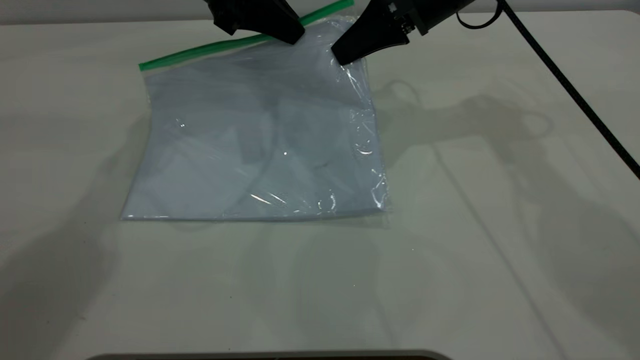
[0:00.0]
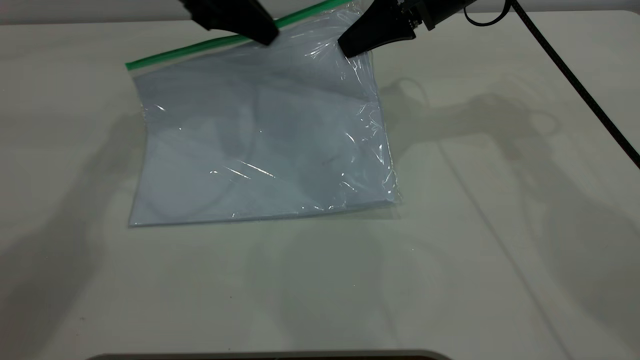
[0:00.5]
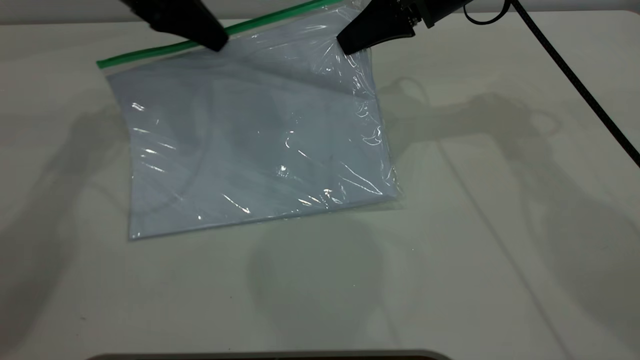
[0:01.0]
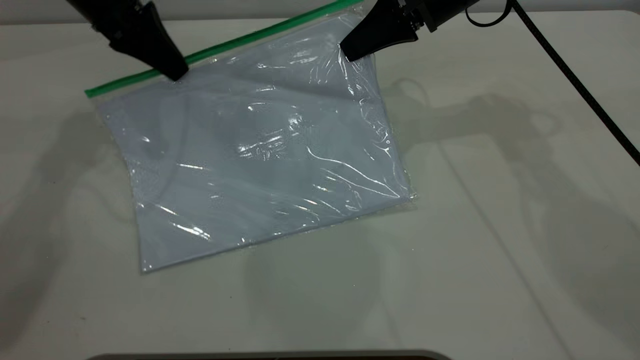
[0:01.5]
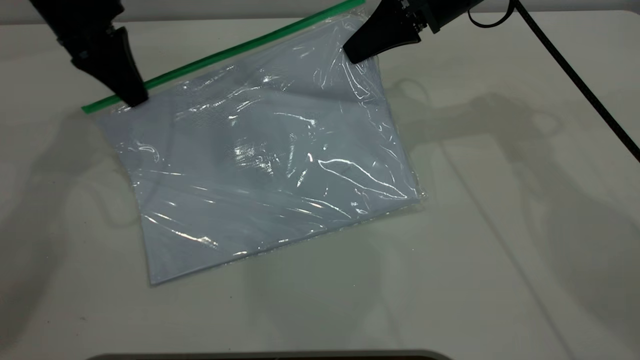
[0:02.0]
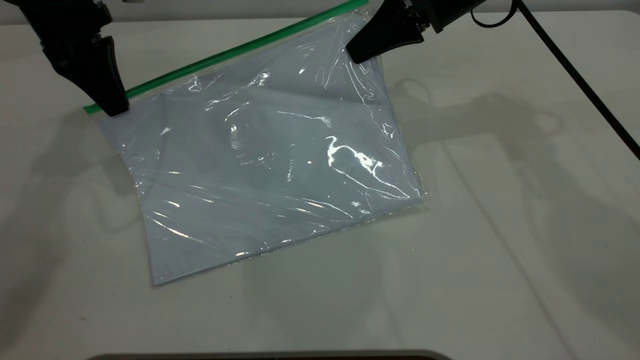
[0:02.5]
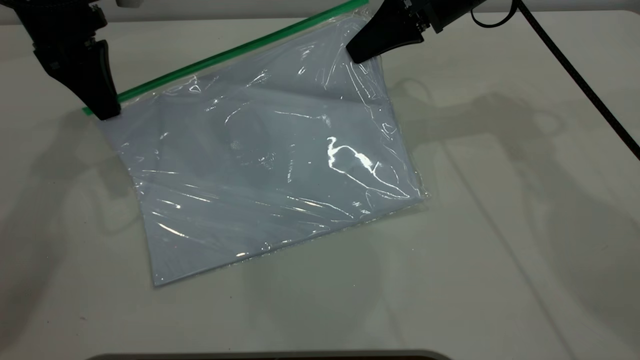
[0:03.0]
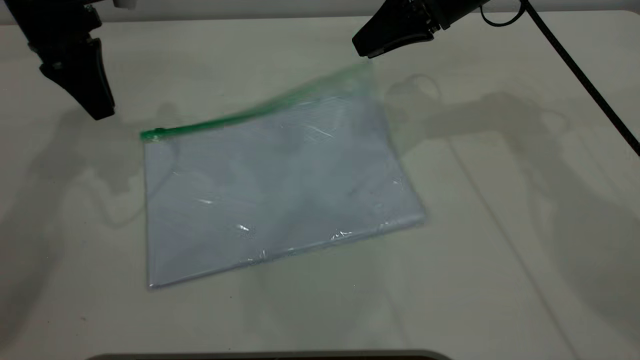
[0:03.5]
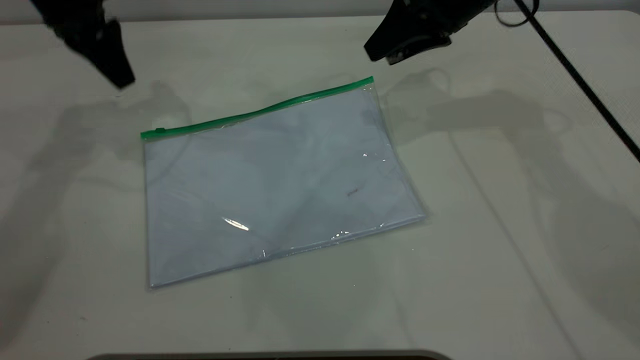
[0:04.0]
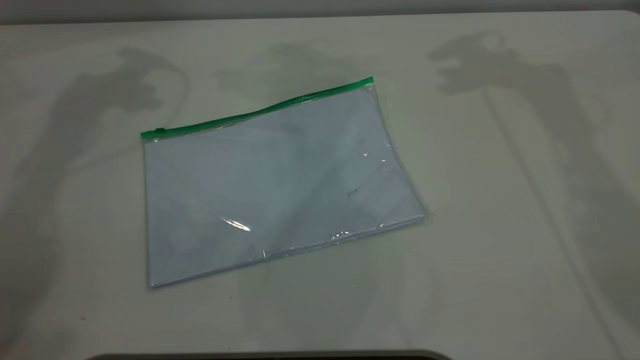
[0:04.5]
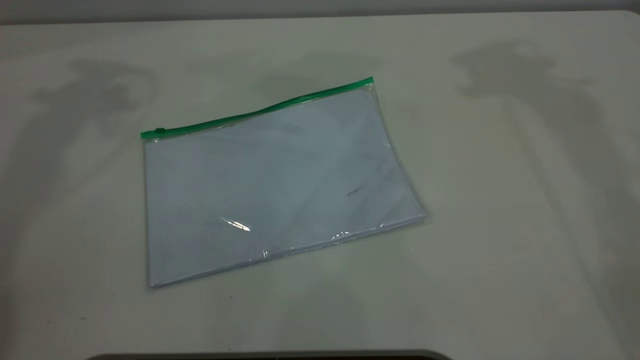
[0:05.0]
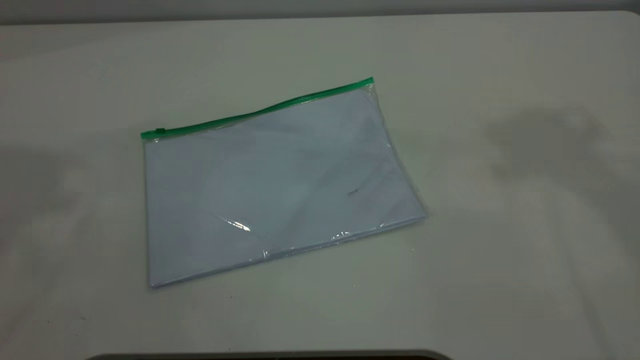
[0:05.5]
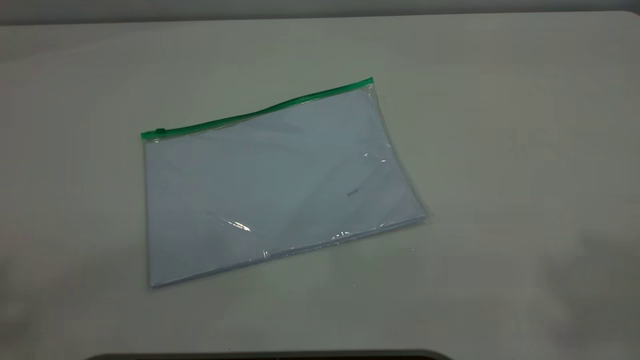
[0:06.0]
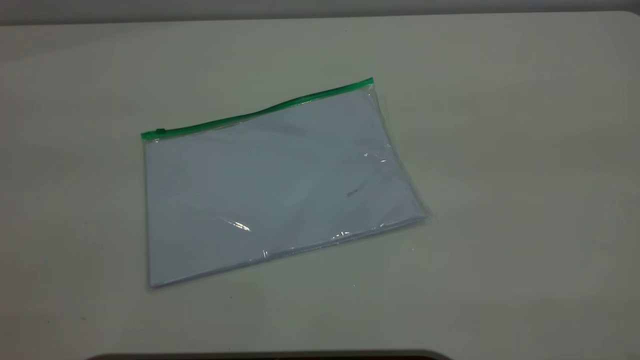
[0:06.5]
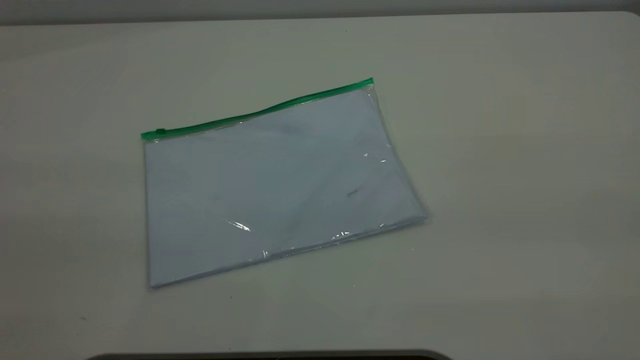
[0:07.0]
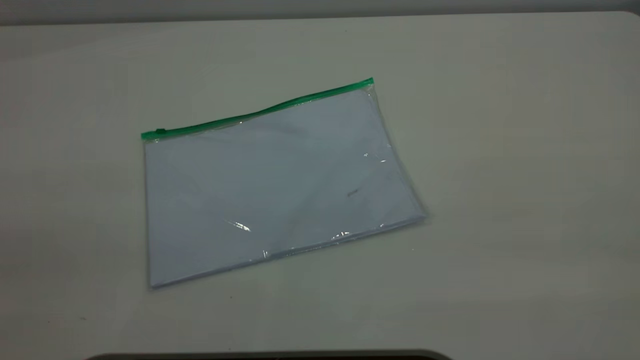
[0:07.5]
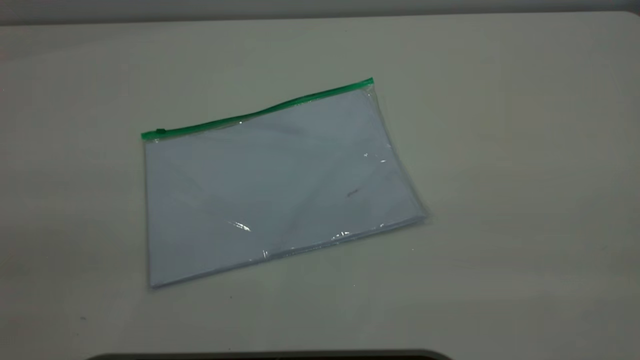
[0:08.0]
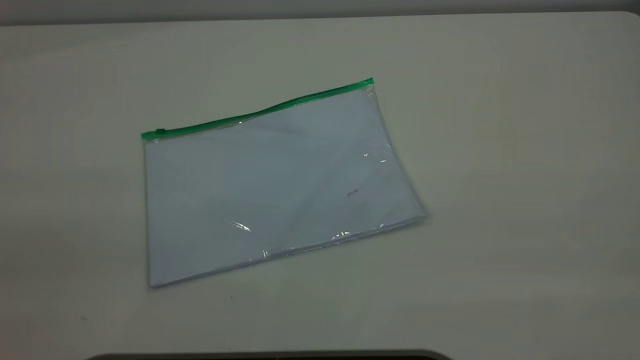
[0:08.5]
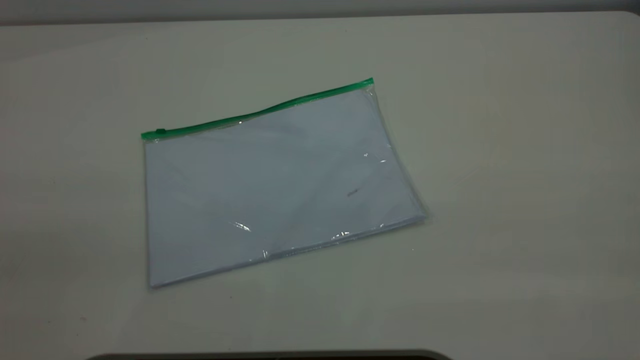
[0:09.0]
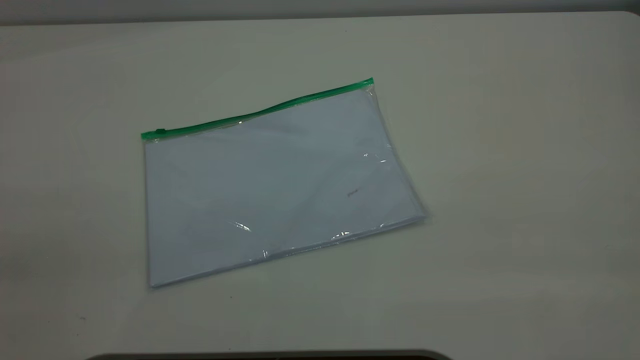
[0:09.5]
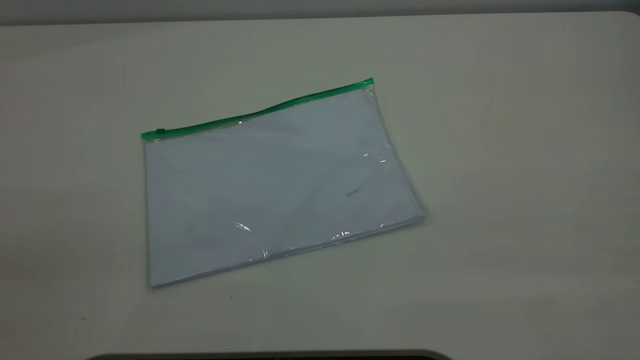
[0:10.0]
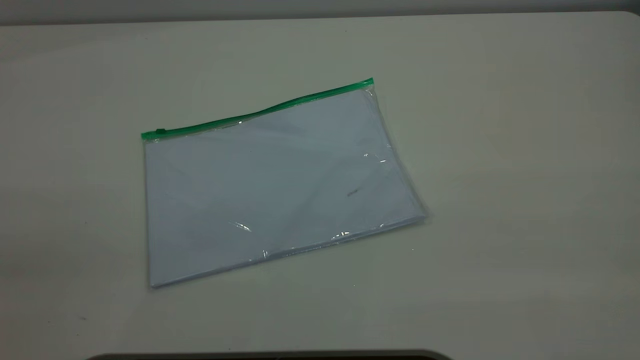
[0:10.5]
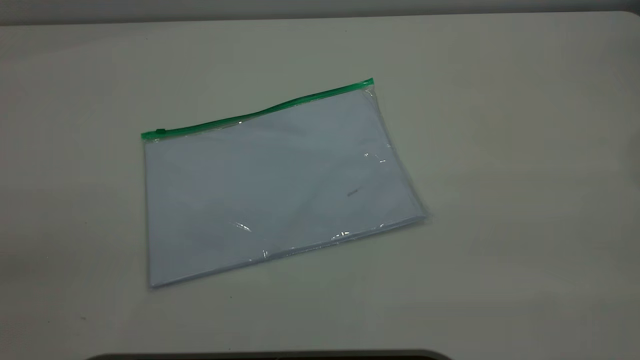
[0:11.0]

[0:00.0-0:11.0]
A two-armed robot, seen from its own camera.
Step, 0:00.0 to 0:03.0: Pulling up the zipper on the transparent plastic bag with the left gripper to close it.
0:00.0 to 0:02.0: The left gripper moves to the left, roughly 10 cm.
0:02.0 to 0:03.5: The left gripper opens its fingers, while the right gripper opens.
0:03.5 to 0:05.5: The left gripper shifts about 40 cm upward and backward, and opens its fingers; the right gripper is displaced upward by approximately 40 cm.

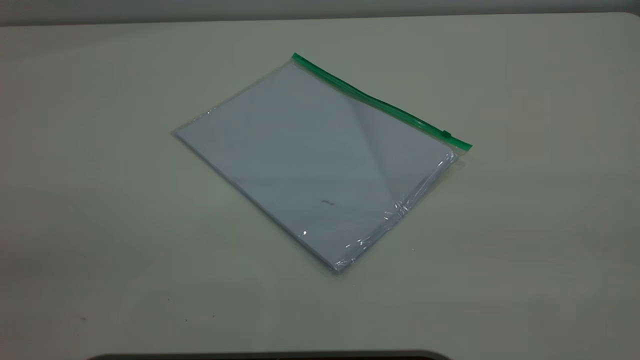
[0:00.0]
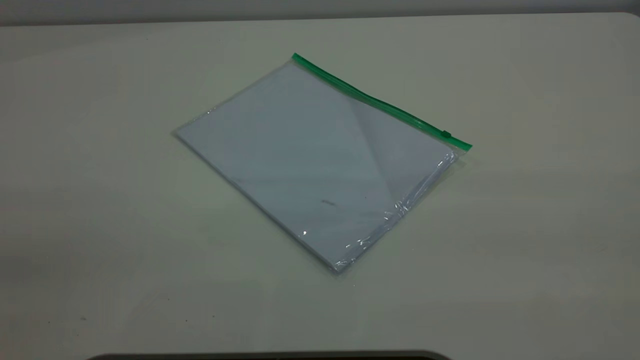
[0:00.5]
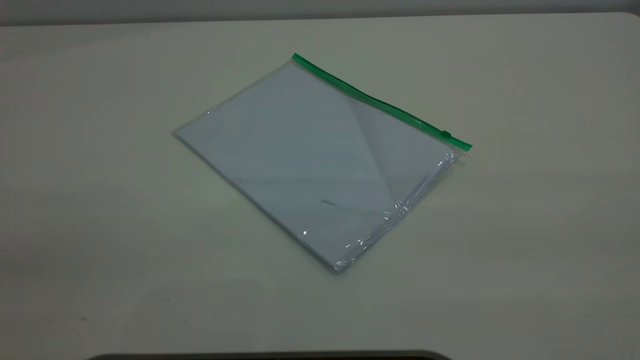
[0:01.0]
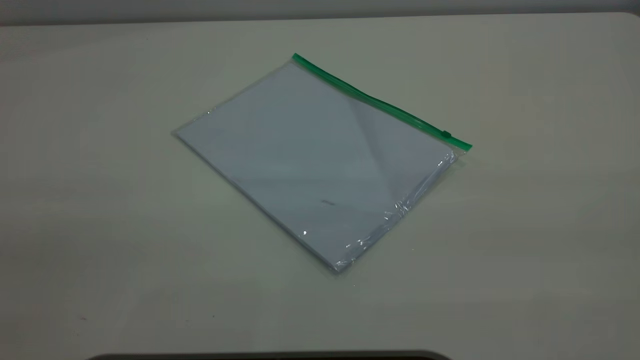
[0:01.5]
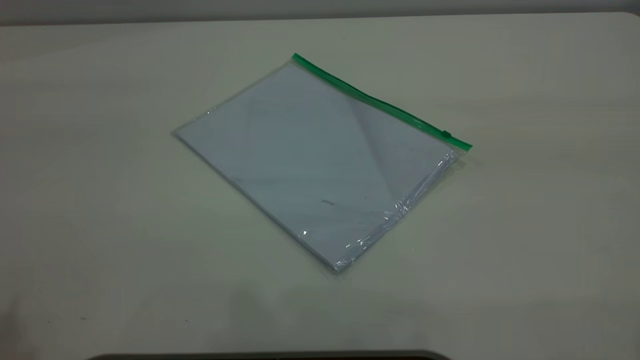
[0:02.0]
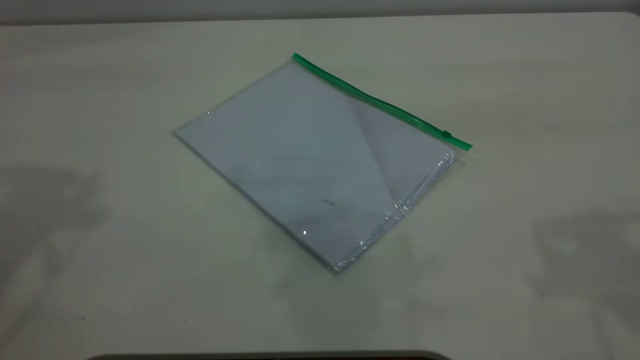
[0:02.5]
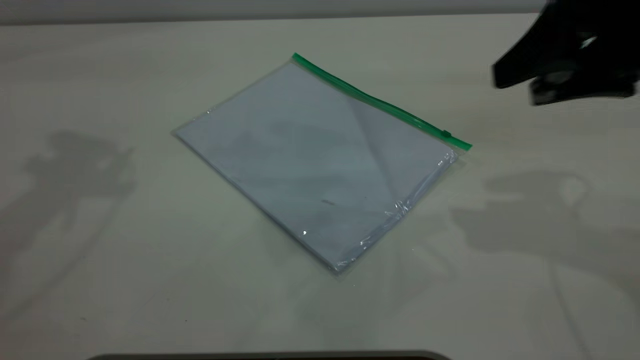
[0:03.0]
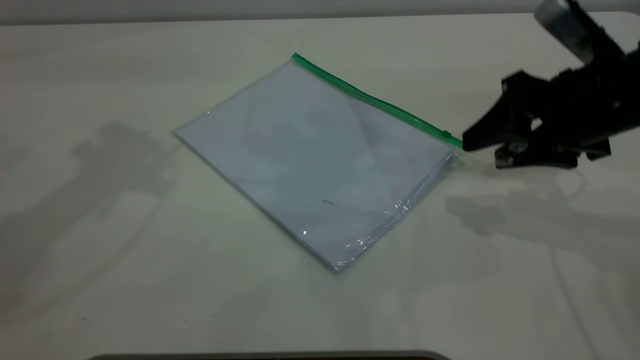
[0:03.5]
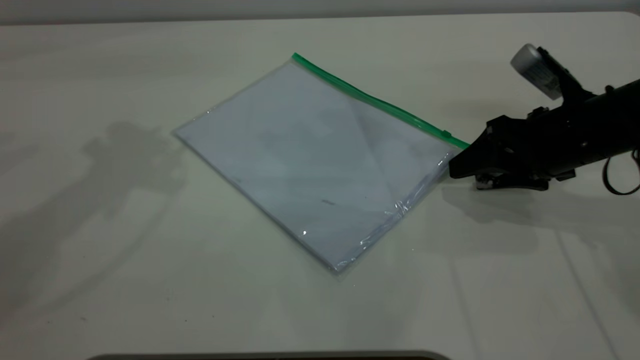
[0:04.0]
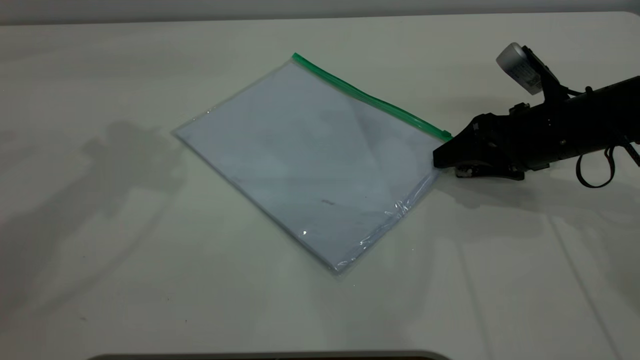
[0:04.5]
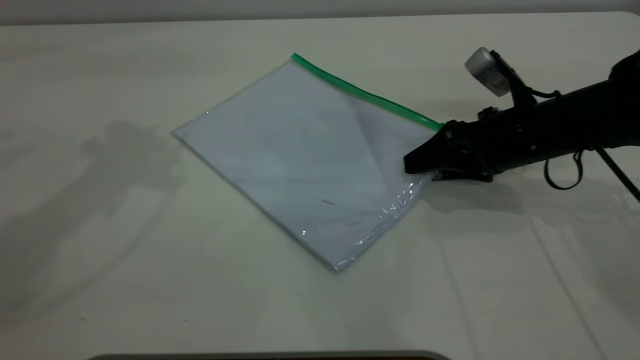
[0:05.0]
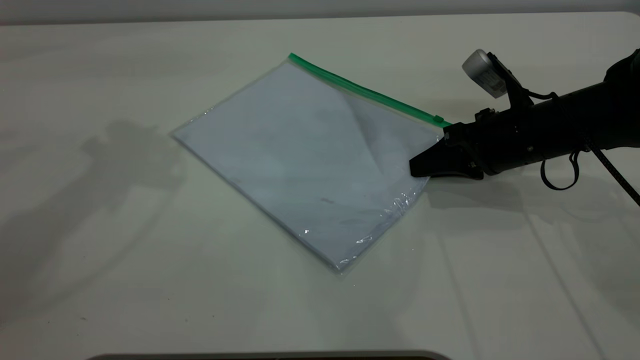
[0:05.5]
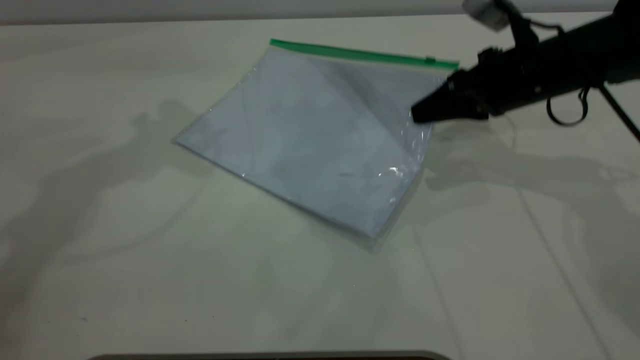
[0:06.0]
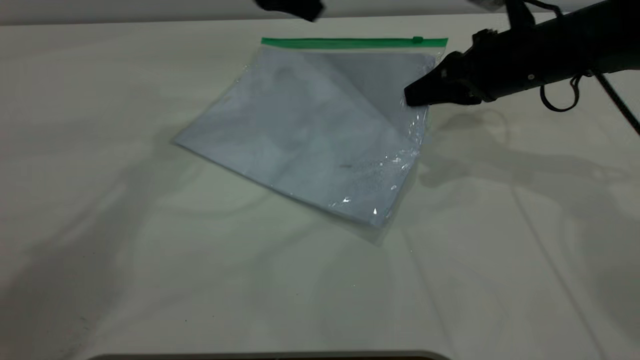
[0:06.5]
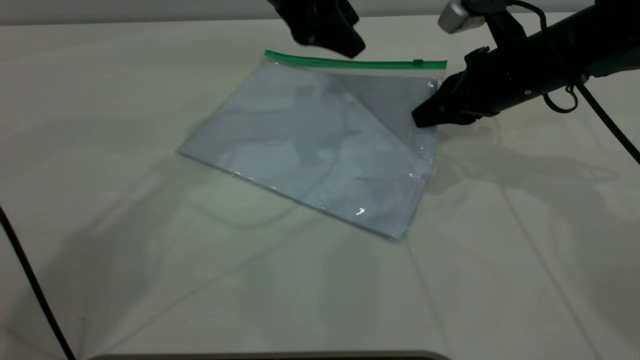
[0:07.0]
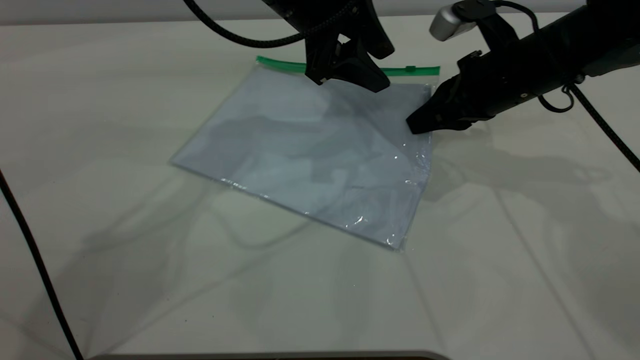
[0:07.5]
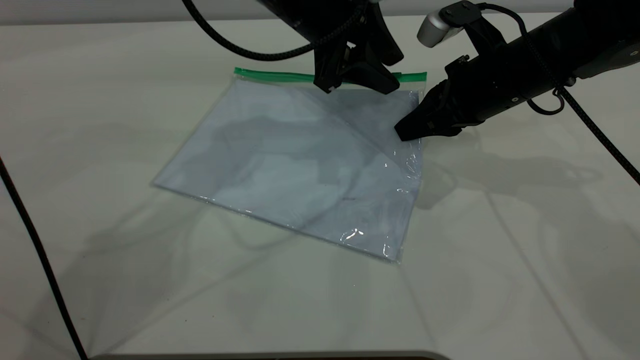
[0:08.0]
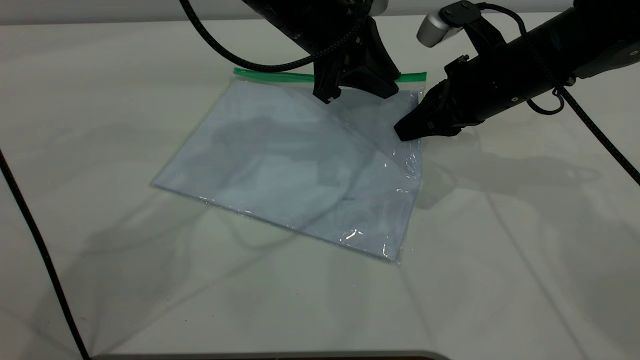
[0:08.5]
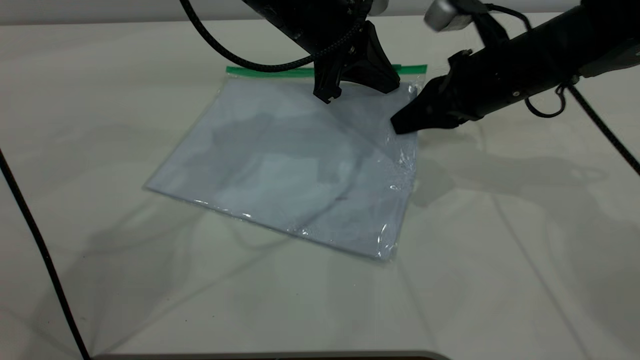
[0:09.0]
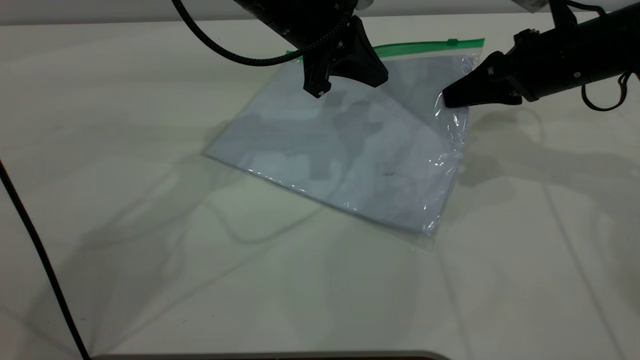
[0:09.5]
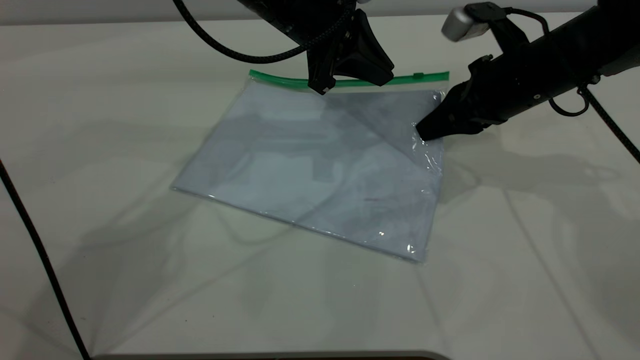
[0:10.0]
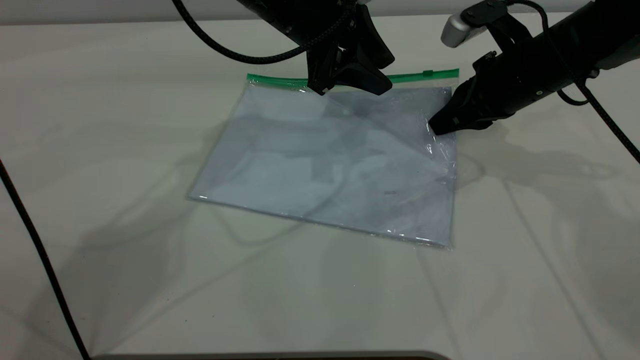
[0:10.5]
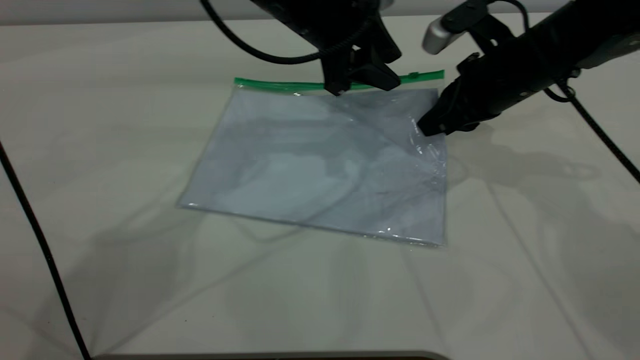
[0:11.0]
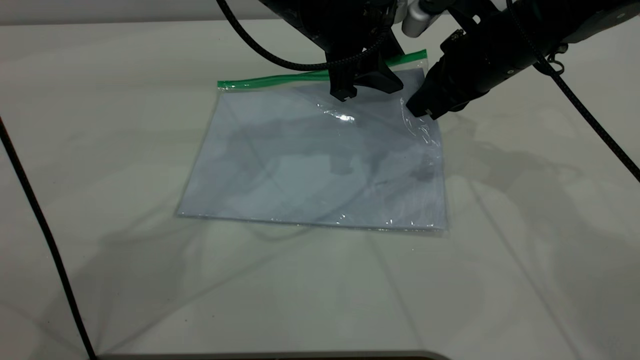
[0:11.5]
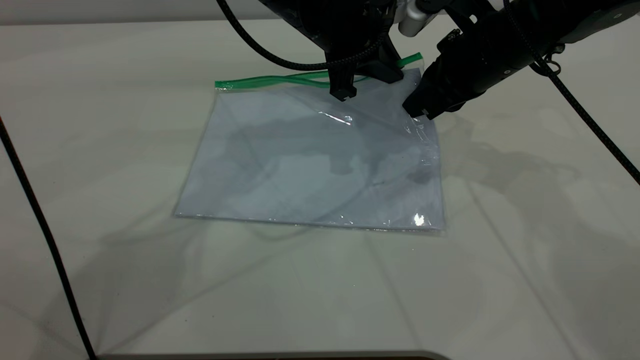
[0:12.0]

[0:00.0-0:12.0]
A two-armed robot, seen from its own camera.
Step, 0:00.0 to 0:05.5: Pick up the transparent plastic bag with the right gripper.
0:02.0 to 0:04.0: The right gripper shifts roughly 40 cm downward and forward.
0:04.0 to 0:06.0: The grippers both shift forward by about 5 cm. The right gripper closes.
0:06.0 to 0:08.0: The left gripper moves to the right and downward, approximately 20 cm.
0:08.0 to 0:10.0: The left gripper closes.
0:10.0 to 0:12.0: The left gripper opens, then closes again.
